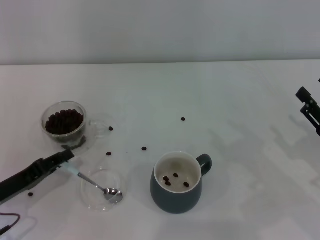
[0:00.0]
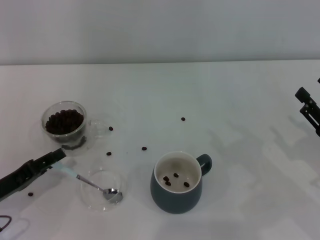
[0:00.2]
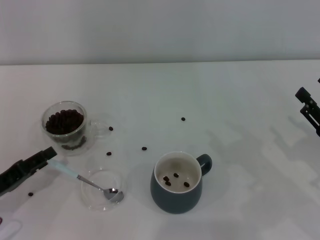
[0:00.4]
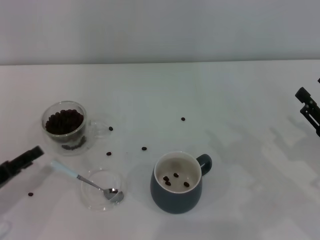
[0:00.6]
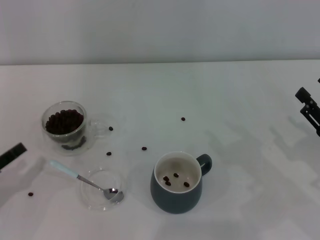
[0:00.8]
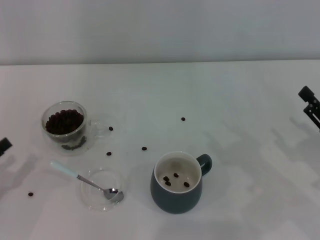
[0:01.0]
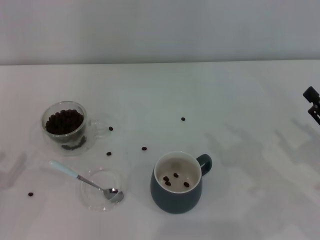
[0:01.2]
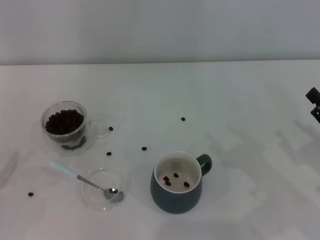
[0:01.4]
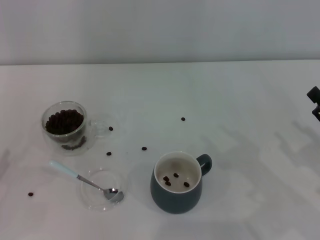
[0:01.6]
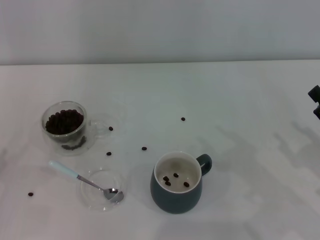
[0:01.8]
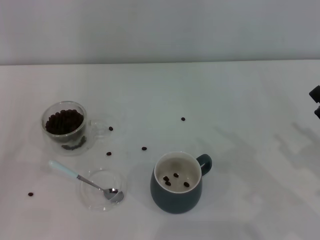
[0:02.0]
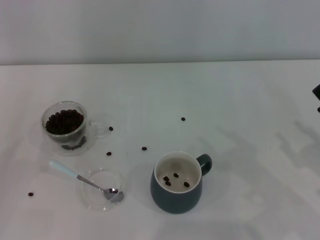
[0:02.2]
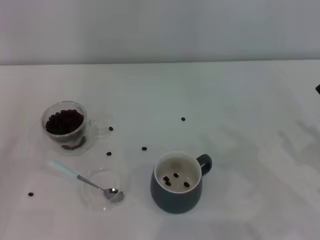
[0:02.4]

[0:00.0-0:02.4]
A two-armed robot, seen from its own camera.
Task of the whole recording: Use a blue spoon to take out the coffee beans from the glass and pour them into the gray cup.
0:00.0 to 0:01.2: The left gripper is displaced to the left by about 10 cm, and opens.

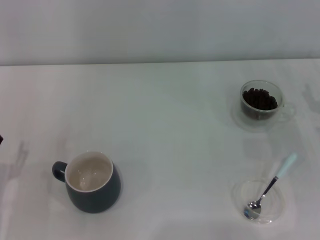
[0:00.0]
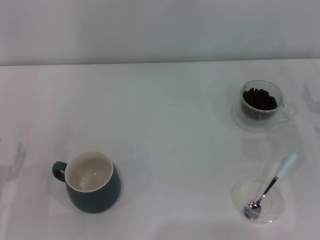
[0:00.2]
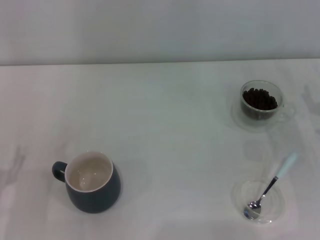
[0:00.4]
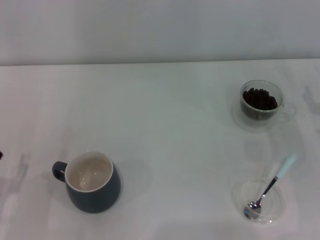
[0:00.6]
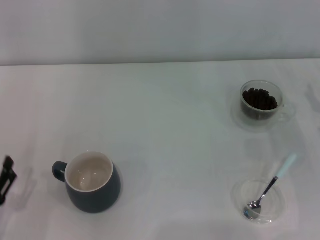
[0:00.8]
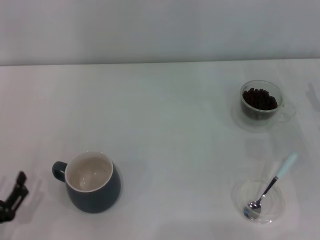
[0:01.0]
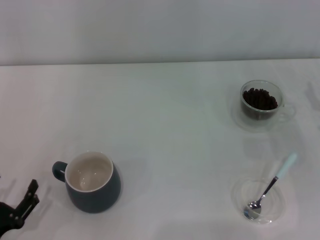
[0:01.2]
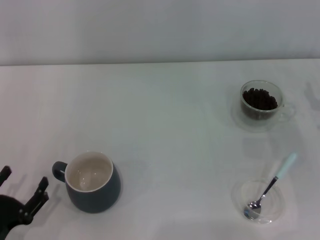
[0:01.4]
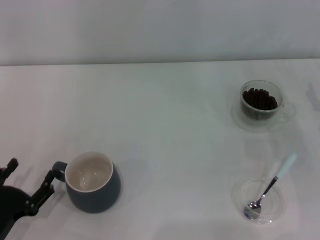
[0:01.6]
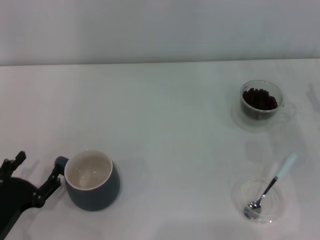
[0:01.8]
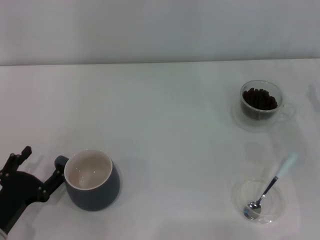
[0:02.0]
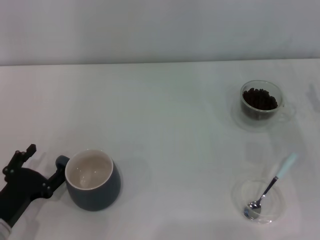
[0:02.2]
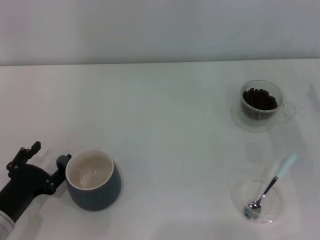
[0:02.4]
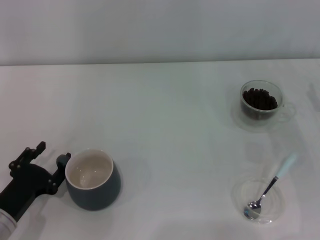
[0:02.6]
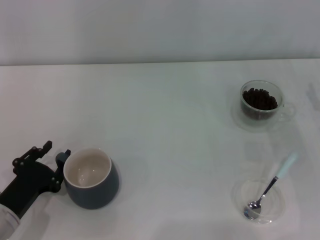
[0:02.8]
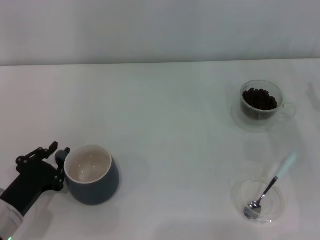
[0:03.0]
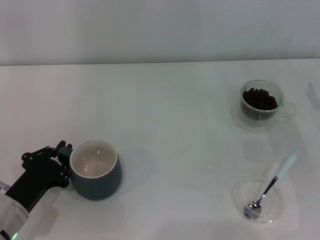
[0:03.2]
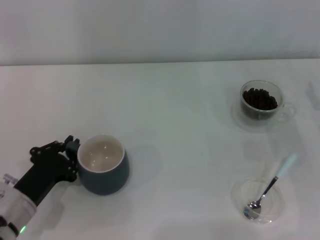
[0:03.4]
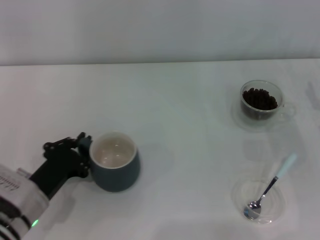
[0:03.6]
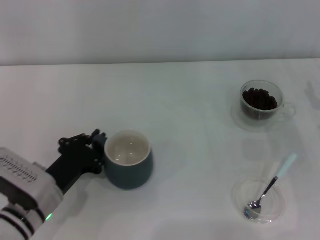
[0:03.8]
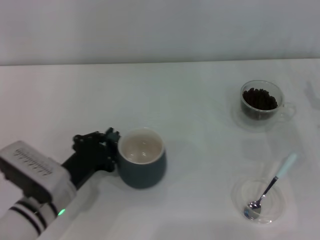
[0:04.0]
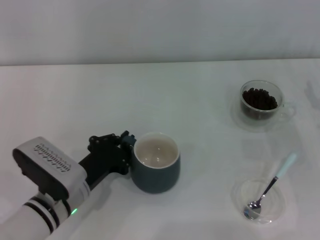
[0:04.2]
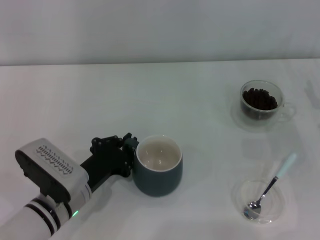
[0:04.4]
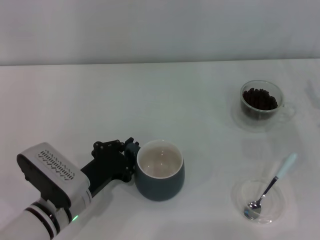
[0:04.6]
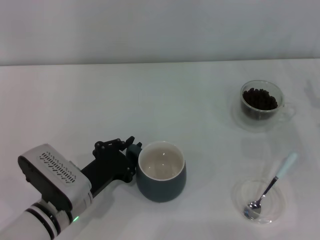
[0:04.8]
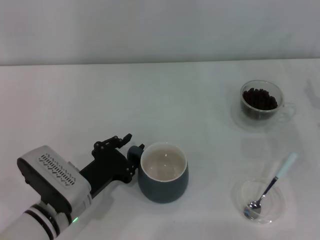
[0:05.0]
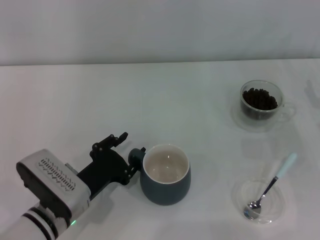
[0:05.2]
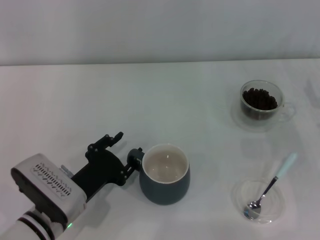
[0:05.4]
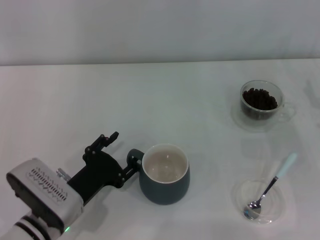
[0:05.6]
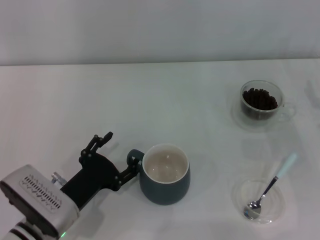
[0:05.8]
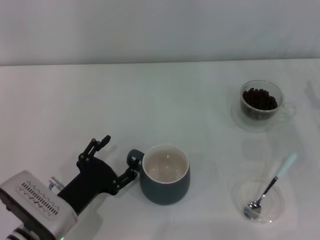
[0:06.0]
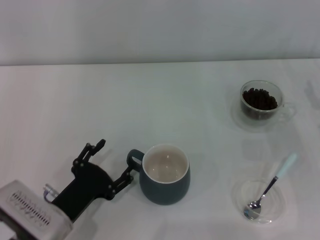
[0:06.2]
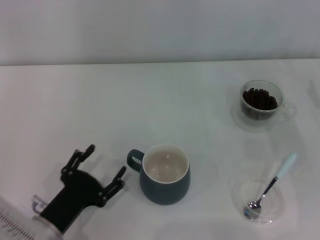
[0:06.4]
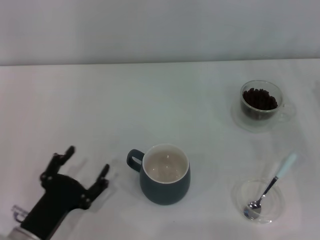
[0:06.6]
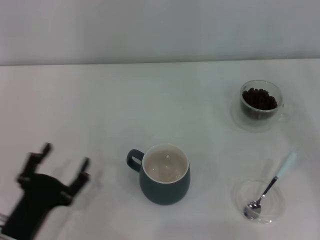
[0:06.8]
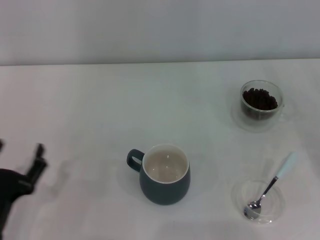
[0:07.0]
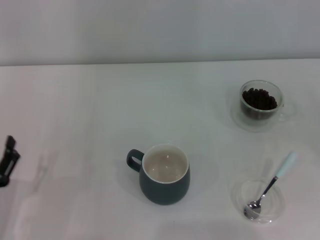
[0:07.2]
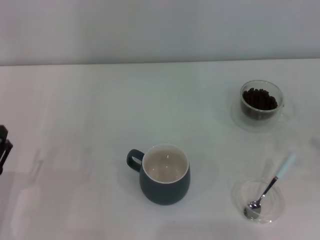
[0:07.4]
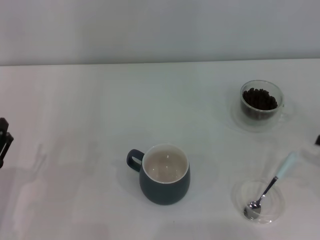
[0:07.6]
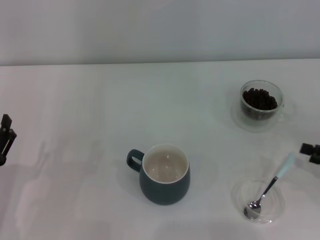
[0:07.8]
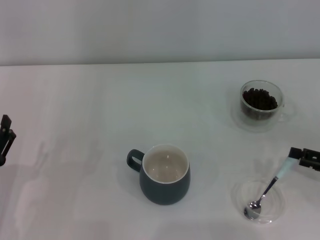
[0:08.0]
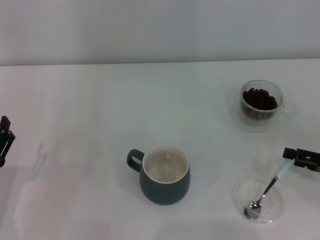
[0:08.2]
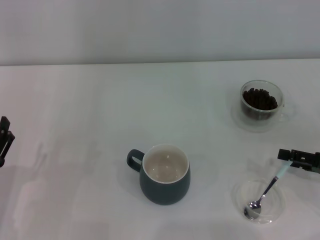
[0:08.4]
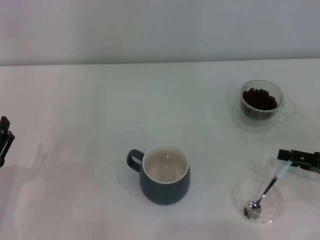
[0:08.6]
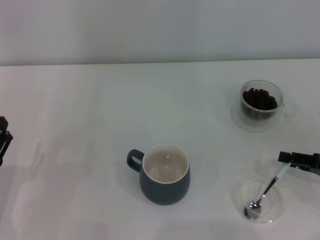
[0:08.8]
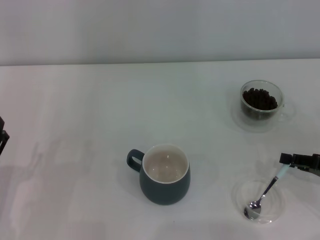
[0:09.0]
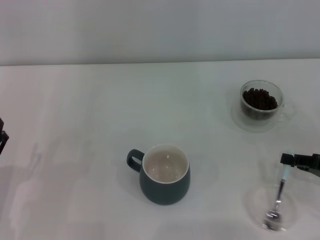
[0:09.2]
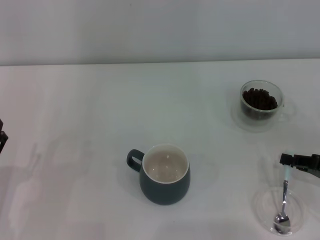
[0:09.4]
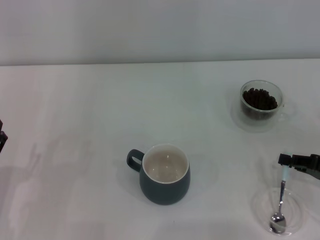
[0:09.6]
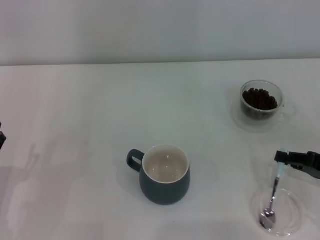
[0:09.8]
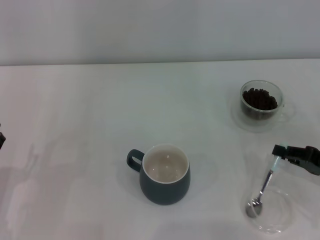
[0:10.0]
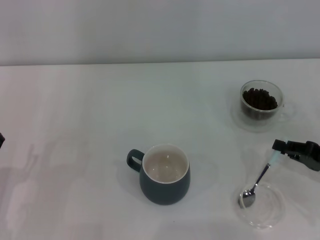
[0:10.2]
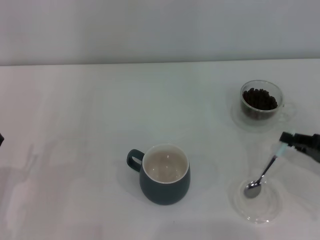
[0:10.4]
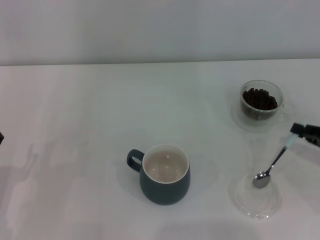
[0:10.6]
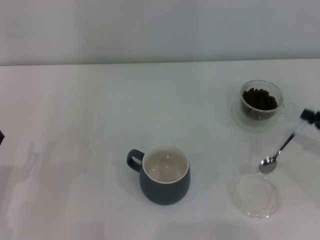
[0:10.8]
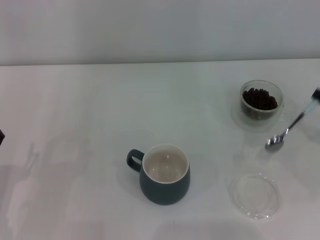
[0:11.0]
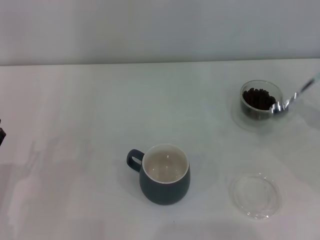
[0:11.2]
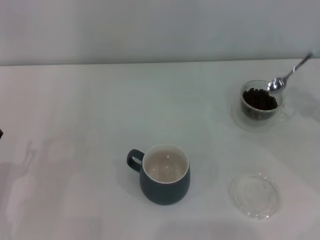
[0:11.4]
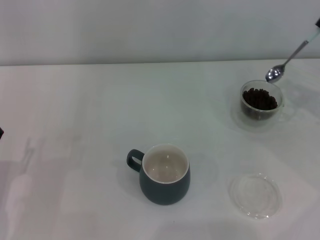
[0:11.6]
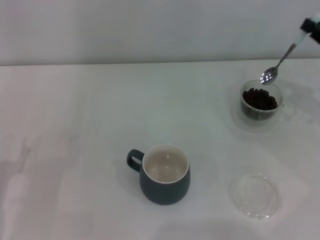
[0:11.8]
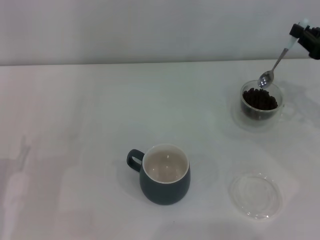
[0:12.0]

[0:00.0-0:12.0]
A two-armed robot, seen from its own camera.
Task of the whole recording: Use a blue spoon to take out the coffee beans from the glass and pour them into the gray cup.
Step, 0:00.0 to 0:06.2: Move the cup to the center of view with the left gripper.
Step, 0:06.6 to 0:10.6: Pick up the spoon with the right gripper.
0:00.0 to 0:01.6: The left gripper changes place by about 5 cm.
0:01.6 to 0:03.0: The left gripper goes roughly 5 cm forward, and closes up.
0:03.0 to 0:04.4: The left gripper heads to the right, covering some 10 cm, and closes up.
0:04.4 to 0:06.0: The left gripper opens its fingers.
0:06.0 to 0:07.6: The right gripper heads backward and to the right, covering approximately 10 cm; the left gripper travels to the left by approximately 10 cm.
0:07.6 to 0:09.0: The right gripper ends up about 5 cm from where it was, and closes up.
0:09.0 to 0:10.4: The right gripper closes up.
0:10.4 to 0:12.0: The right gripper is displaced forward and upward by roughly 15 cm.

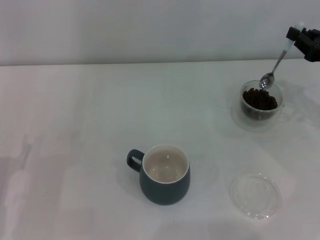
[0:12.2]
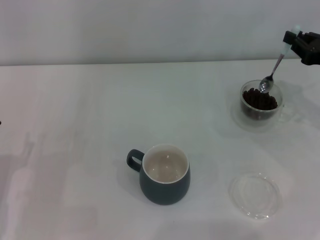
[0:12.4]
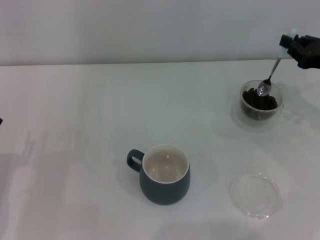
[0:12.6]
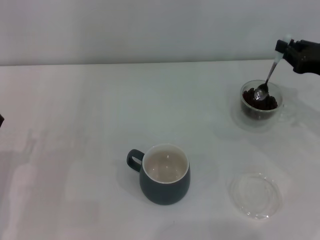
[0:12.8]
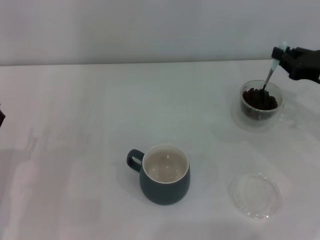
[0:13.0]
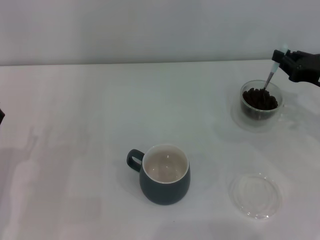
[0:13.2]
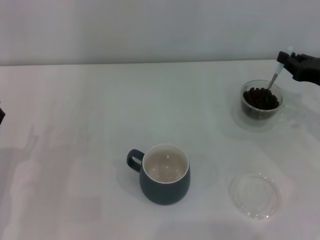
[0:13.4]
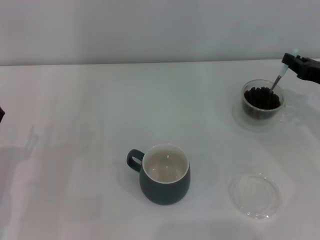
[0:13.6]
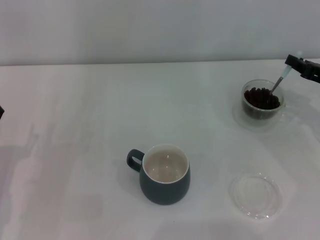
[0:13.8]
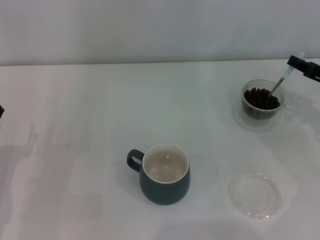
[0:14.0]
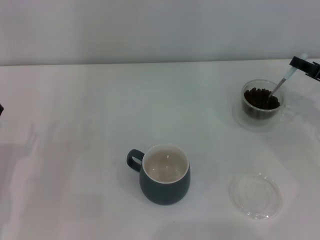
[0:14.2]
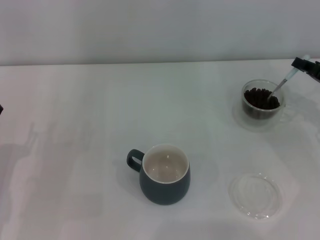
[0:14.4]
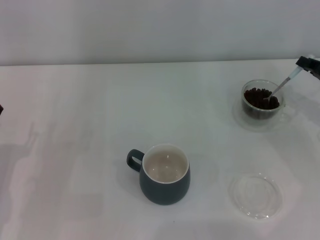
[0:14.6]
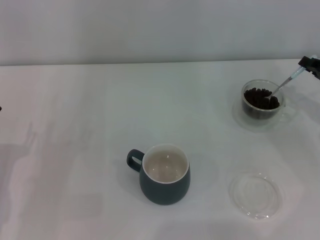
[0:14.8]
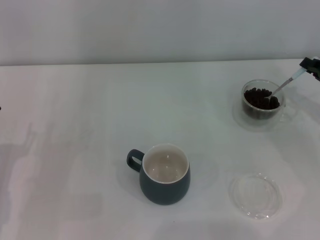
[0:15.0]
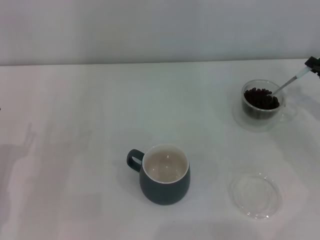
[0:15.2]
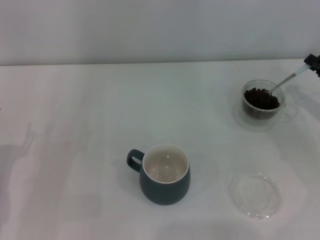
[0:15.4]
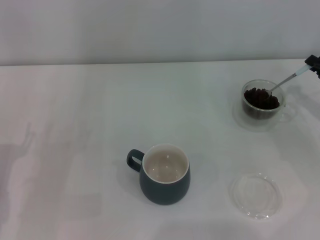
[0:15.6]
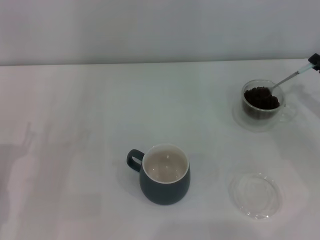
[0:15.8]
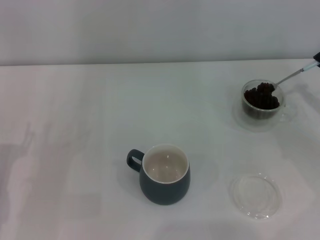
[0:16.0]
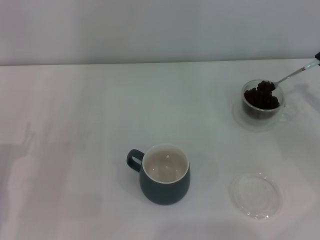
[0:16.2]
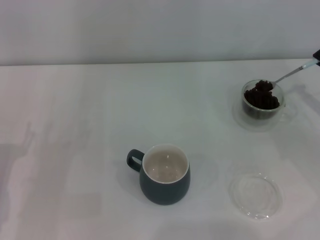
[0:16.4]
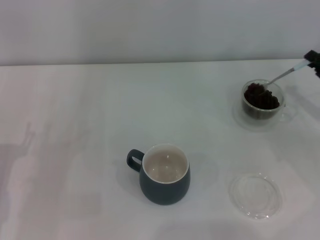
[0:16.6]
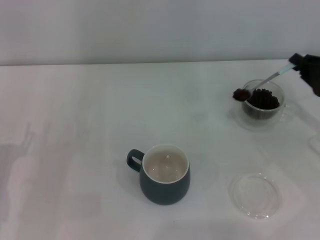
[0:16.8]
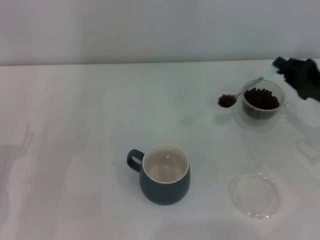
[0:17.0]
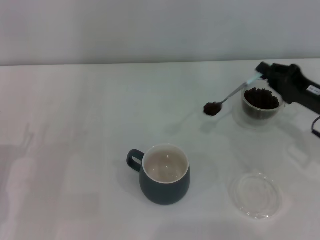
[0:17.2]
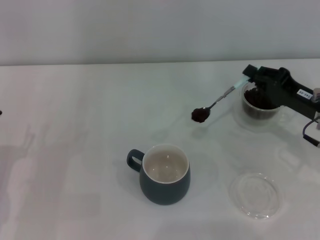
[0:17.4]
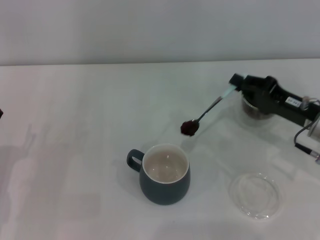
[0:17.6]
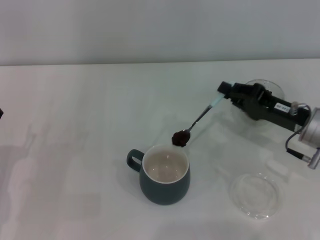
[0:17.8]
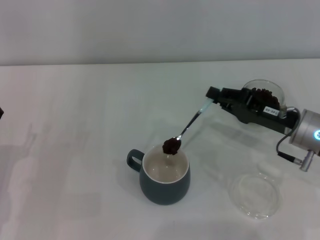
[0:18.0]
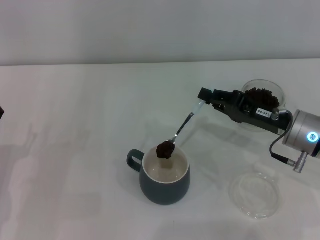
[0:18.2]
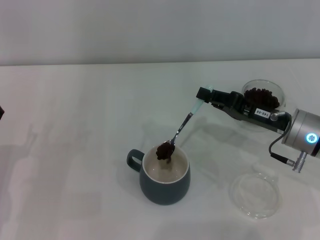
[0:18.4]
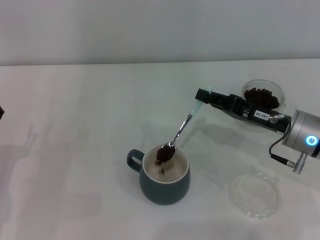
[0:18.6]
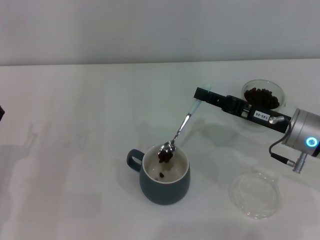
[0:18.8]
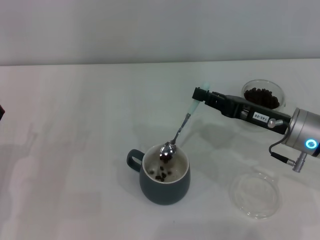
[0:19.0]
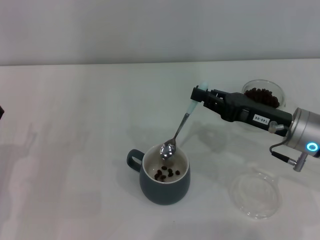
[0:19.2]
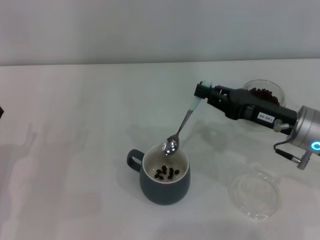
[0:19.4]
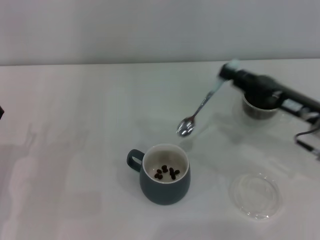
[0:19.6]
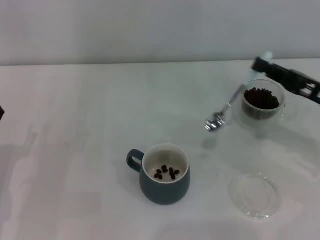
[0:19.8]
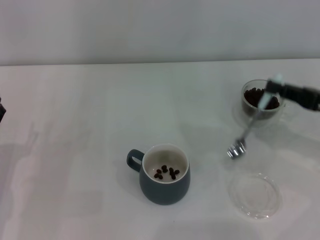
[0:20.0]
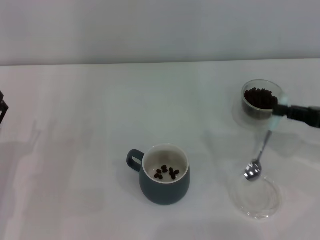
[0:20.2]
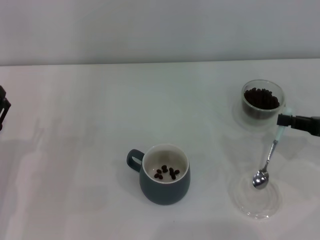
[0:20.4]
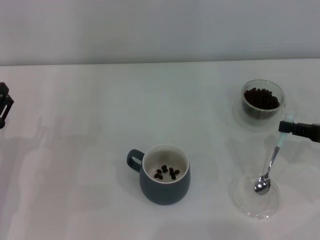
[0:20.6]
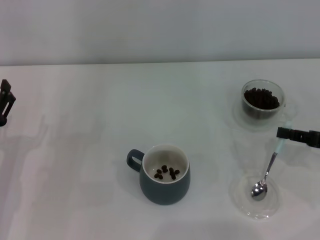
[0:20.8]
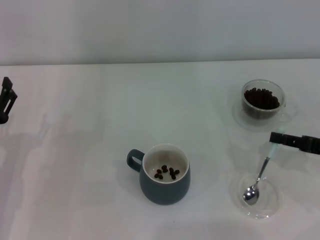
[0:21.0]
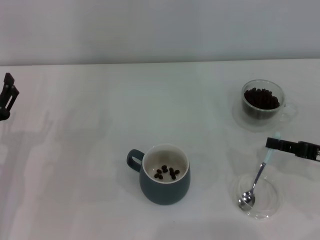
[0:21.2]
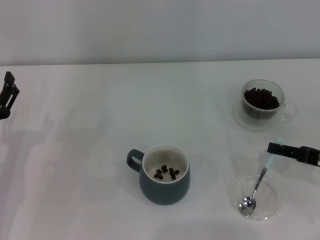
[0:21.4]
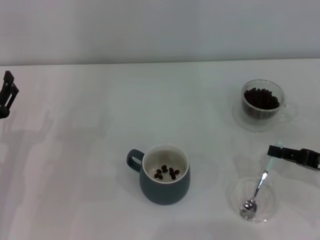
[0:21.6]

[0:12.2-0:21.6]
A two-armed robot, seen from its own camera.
Task of the whole recording: Use a blue spoon to take out the coffee beans from the glass and pour them into the gray cup.
Step, 0:12.2 to 0:19.0: Scoop a spoonful of beans into the cup with the right gripper.
0:15.4 to 0:17.0: The grippers make only small movements.
0:17.0 to 0:18.4: The right gripper heads to the left, covering roughly 10 cm.
0:18.4 to 0:20.0: The right gripper is displaced to the right by about 10 cm.
0:20.0 to 0:21.6: The right gripper is displaced downward by about 5 cm.
